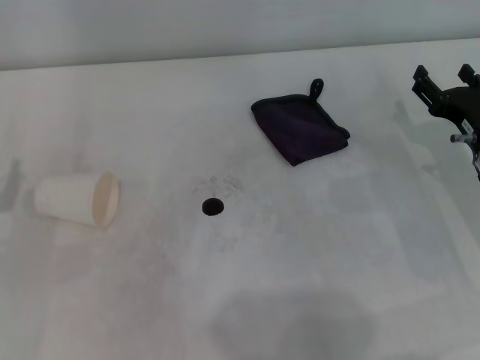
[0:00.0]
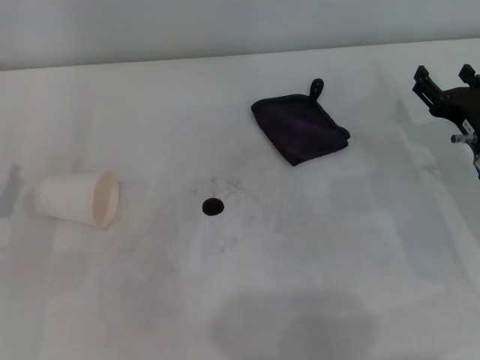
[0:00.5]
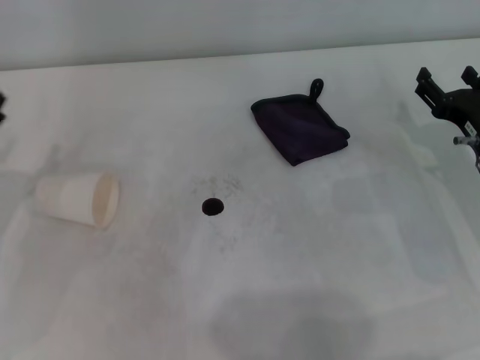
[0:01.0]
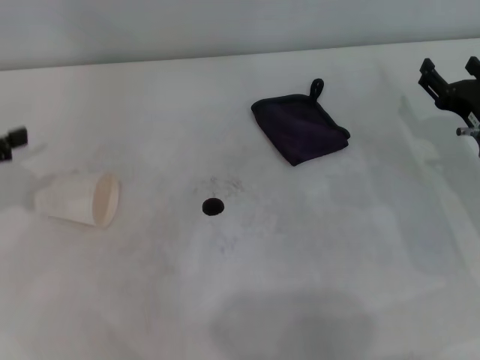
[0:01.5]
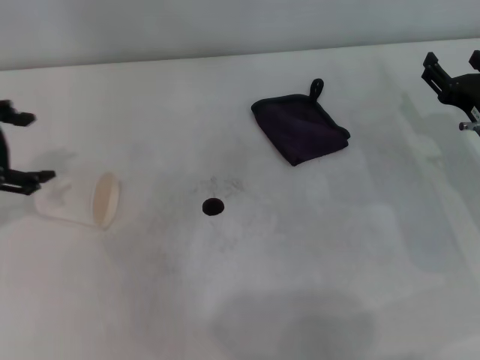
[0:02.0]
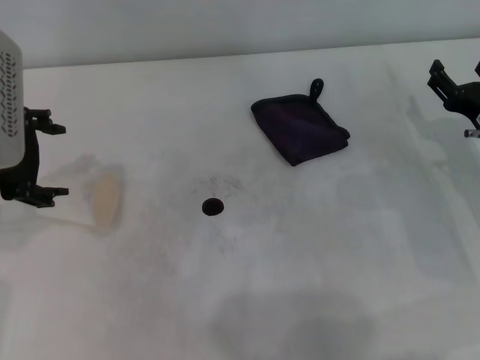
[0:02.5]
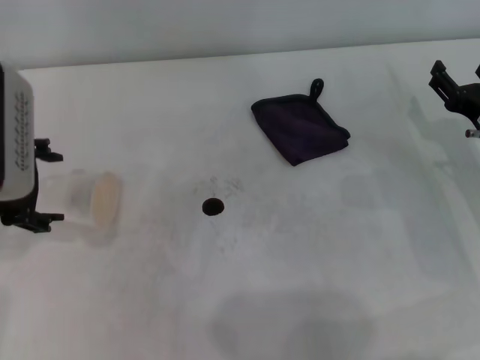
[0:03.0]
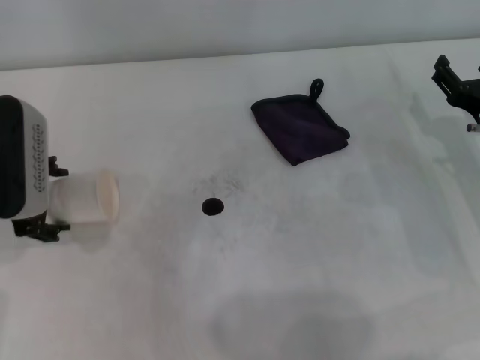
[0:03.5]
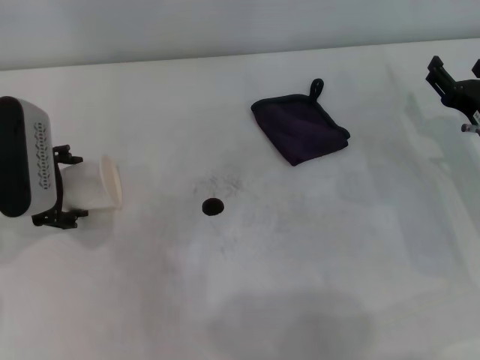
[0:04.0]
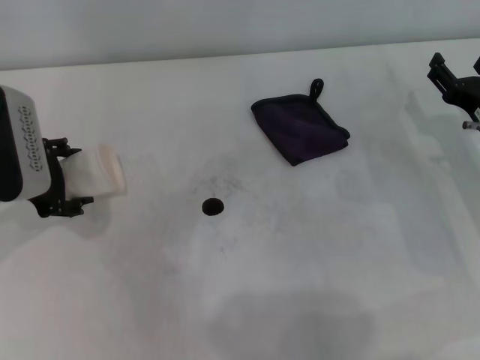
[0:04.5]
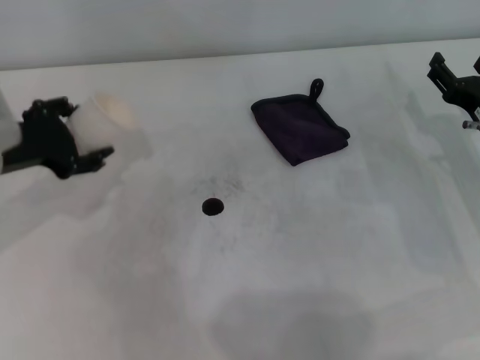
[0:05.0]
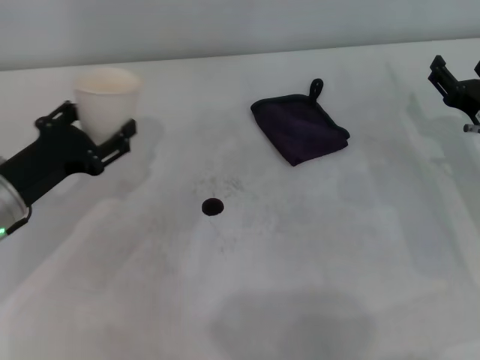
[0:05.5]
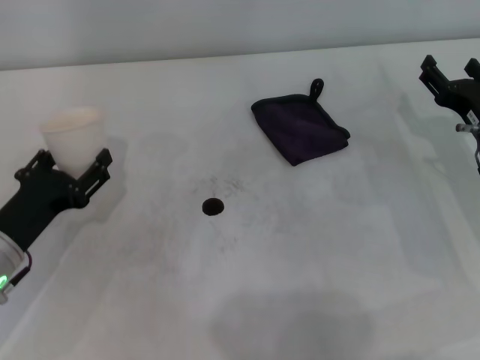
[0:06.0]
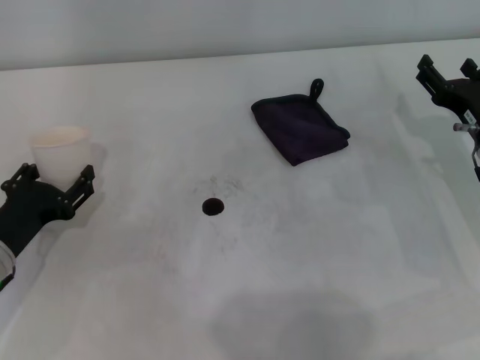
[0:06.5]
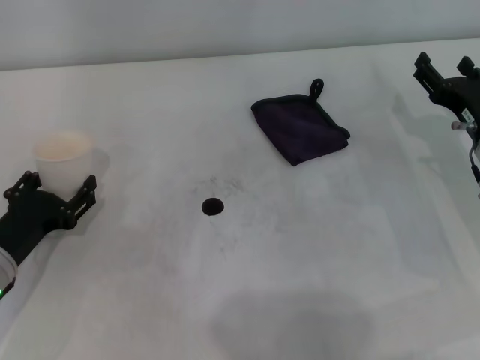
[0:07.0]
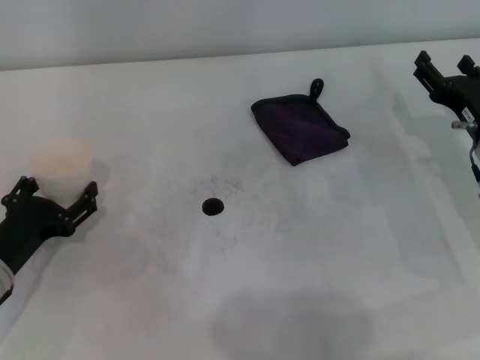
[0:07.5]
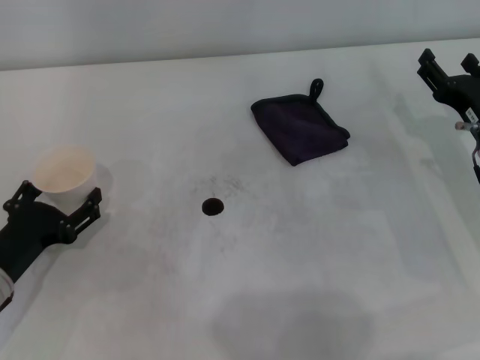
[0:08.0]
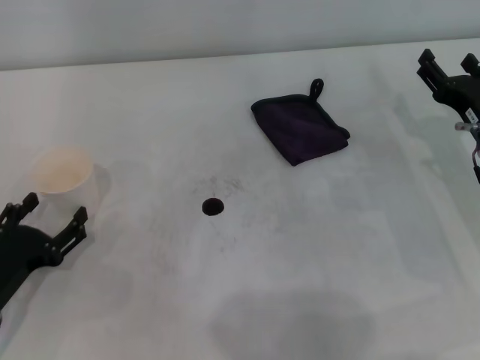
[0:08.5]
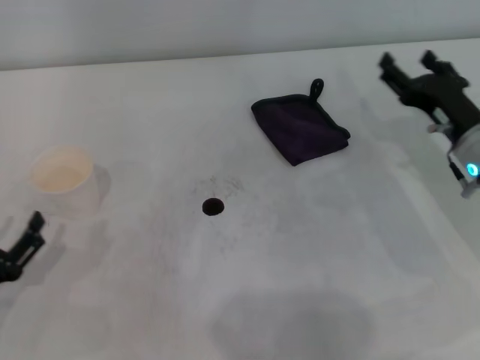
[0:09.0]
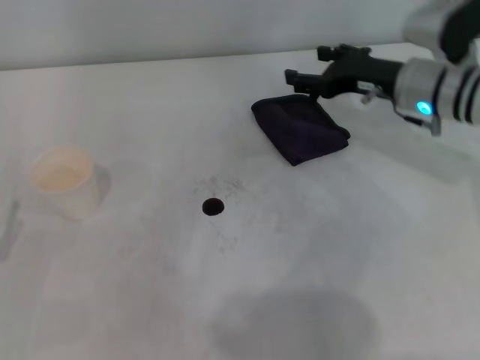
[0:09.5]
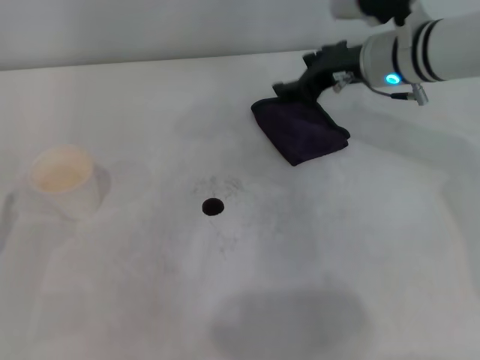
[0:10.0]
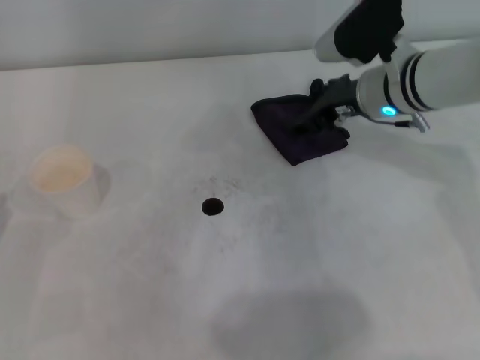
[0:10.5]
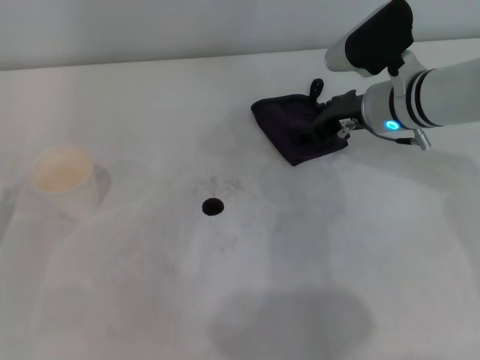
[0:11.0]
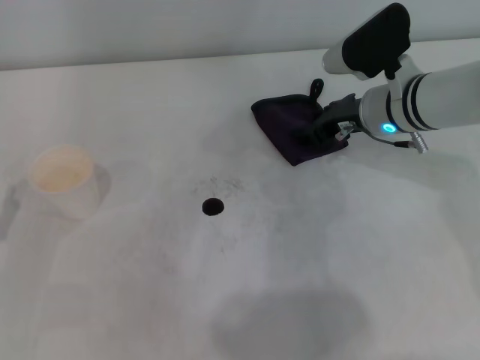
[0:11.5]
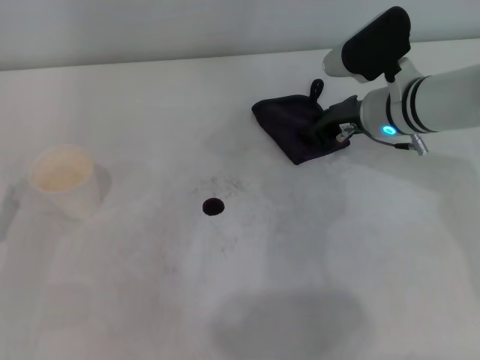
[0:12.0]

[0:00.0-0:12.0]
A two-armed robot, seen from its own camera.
Step, 0:00.0 to 0:04.0: Grasp the paper cup with the left gripper.
Step, 0:04.5 to 0:07.5: Stand the paper cup upright with the left gripper.
0:00.0 to 0:02.0: The left gripper moves upward and forward, about 20 cm.
0:02.0 to 0:04.0: The left gripper shifts some 10 cm downward and to the right.
0:04.0 to 0:06.0: The left gripper goes some 10 cm downward and backward, and closes up.
0:06.0 to 0:08.0: The left gripper opens its fingers.
0:08.0 to 0:10.0: The right gripper shifts about 20 cm forward, to the left and upward, while the left gripper heads to the left, covering approximately 5 cm.
0:10.0 to 0:12.0: The right gripper moves downward, approximately 5 cm, and closes.

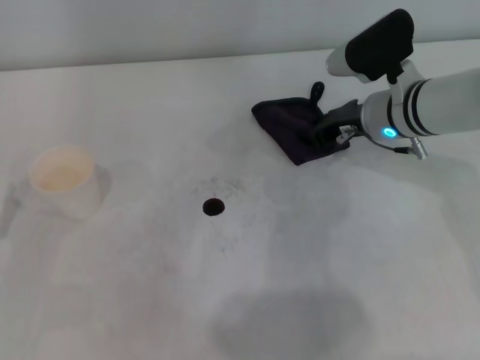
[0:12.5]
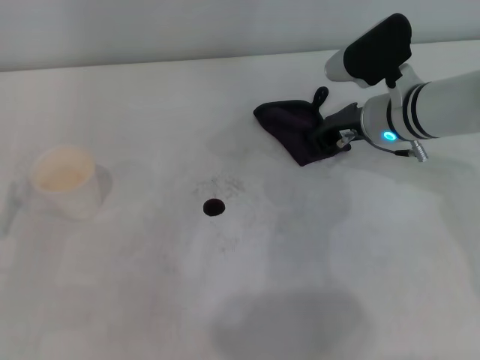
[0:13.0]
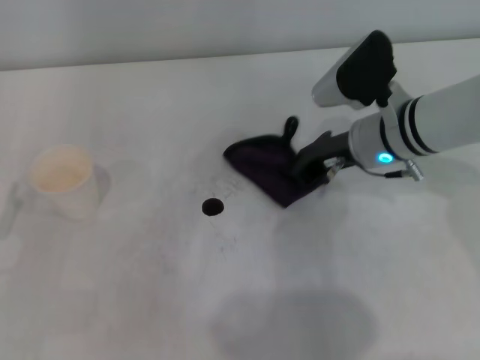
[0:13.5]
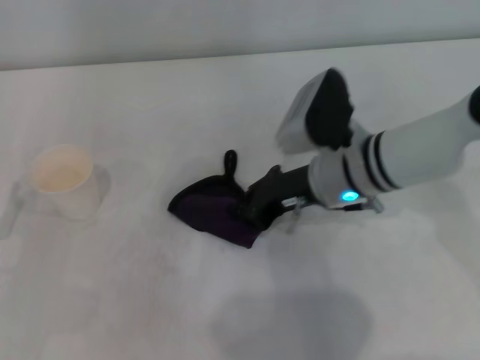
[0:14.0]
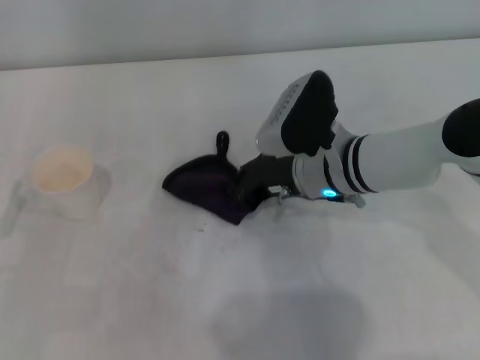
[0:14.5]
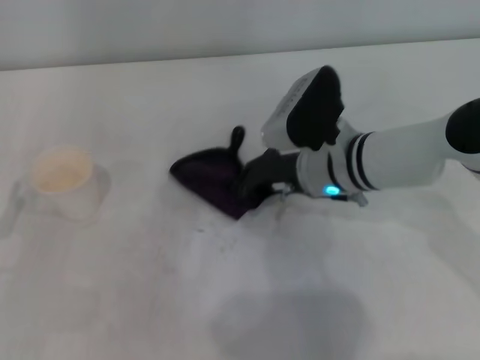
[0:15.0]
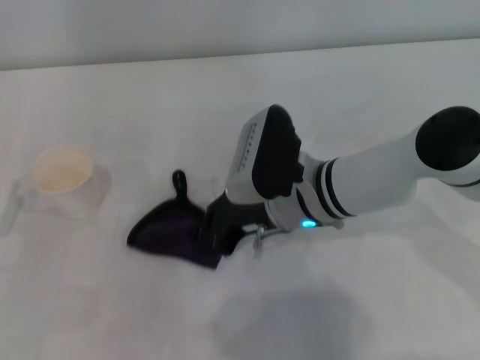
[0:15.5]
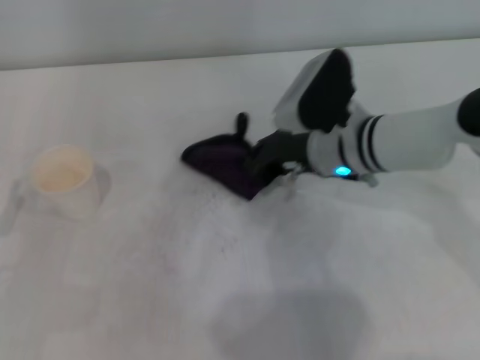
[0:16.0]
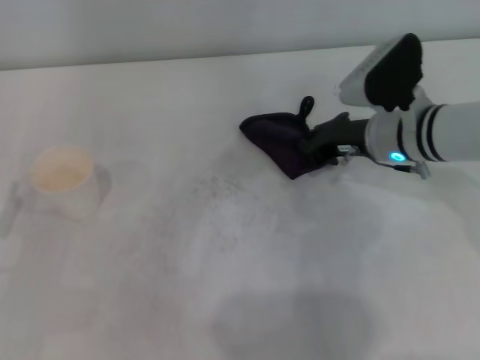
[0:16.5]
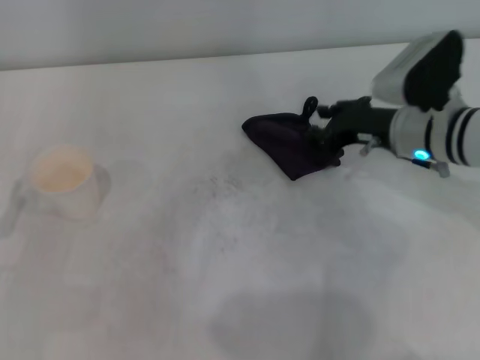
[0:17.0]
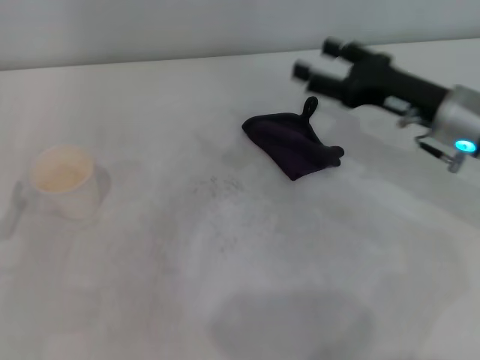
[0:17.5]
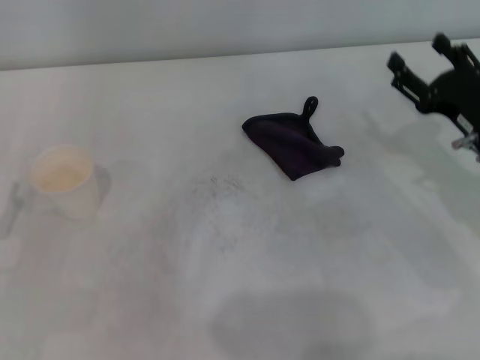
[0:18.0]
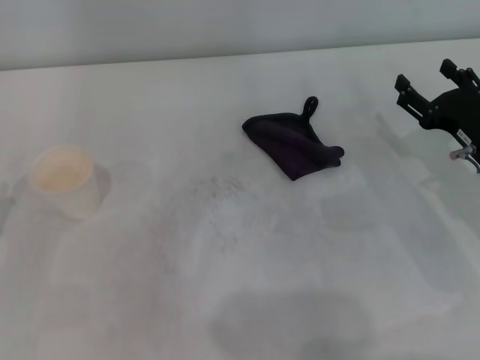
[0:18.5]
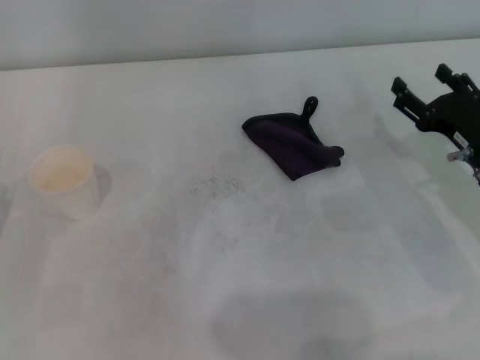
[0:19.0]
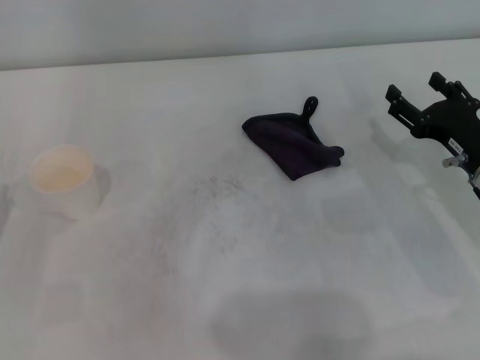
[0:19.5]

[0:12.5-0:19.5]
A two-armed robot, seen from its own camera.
Step, 0:13.0 to 0:15.5: Wipe the stains off the table with the right gripper.
Step, 0:16.0 to 0:16.5: Place the rag on the table with the right gripper.
0:12.5 to 0:14.5: The right gripper goes some 10 cm to the left and backward, and closes up.
0:14.5 to 0:16.0: The grippers stay close to where they were, moving slightly.
0:16.0 to 0:17.5: The right gripper heads to the right, covering some 10 cm, and opens its fingers.
0:17.5 to 0:19.5: The right gripper heads downward, covering approximately 5 cm.

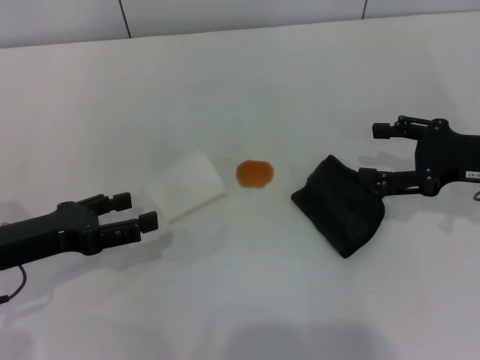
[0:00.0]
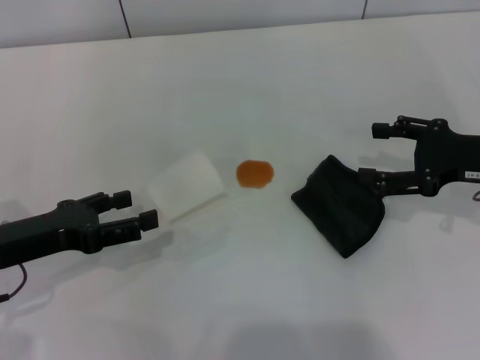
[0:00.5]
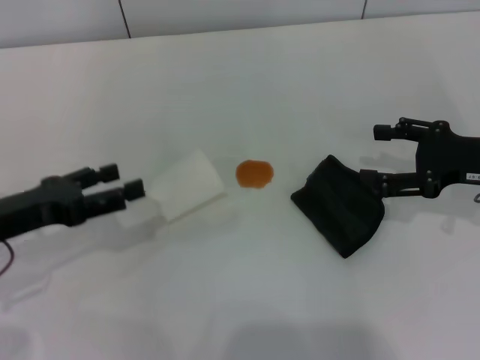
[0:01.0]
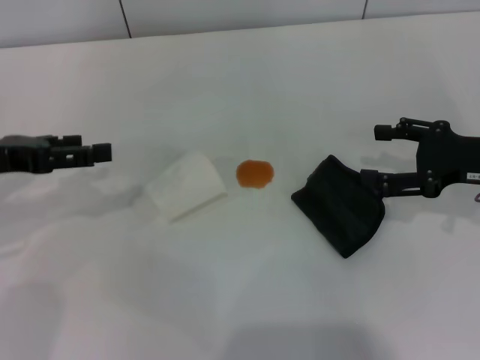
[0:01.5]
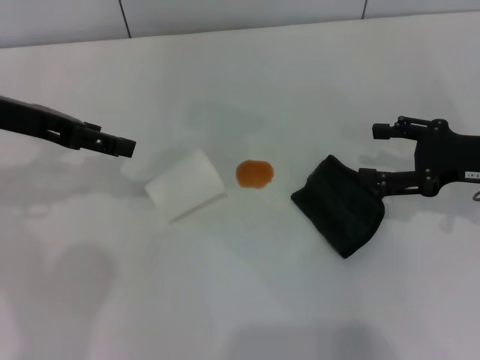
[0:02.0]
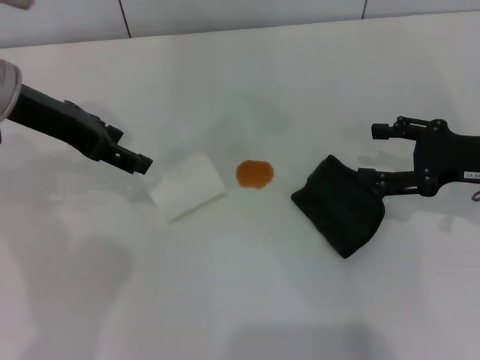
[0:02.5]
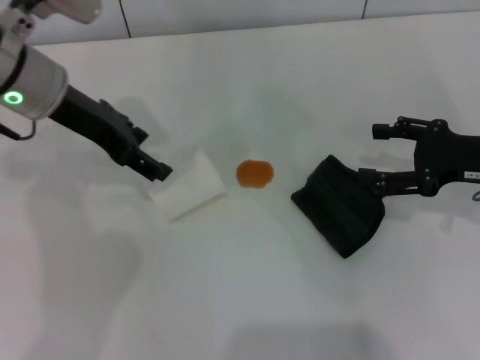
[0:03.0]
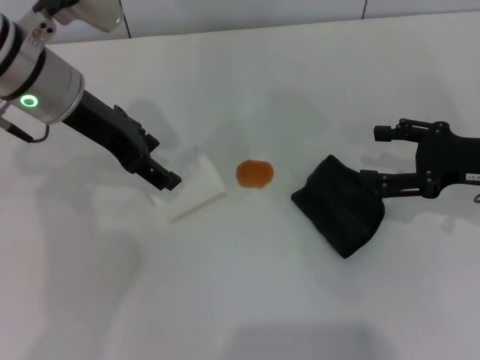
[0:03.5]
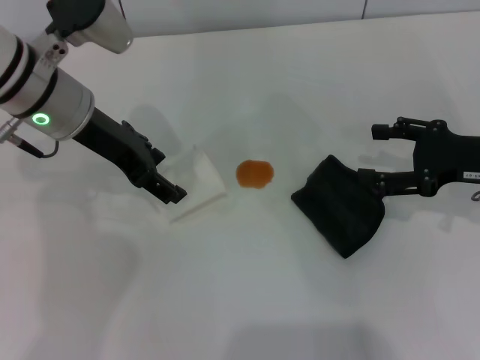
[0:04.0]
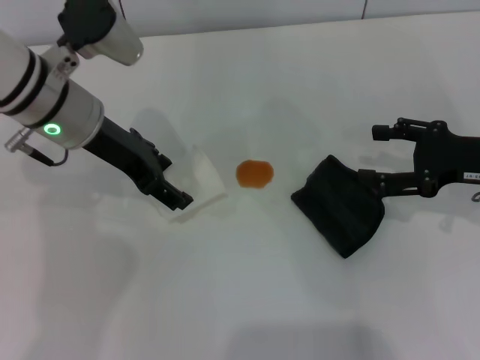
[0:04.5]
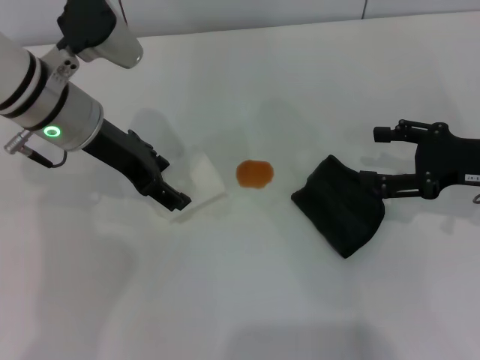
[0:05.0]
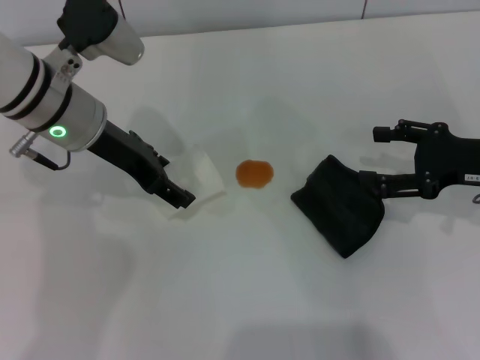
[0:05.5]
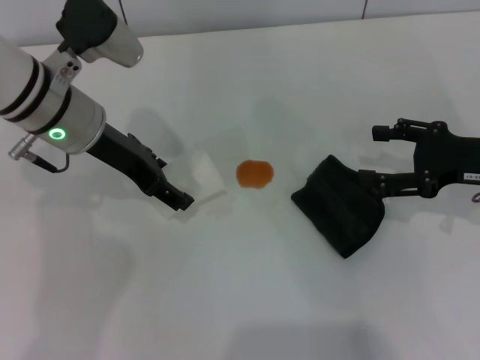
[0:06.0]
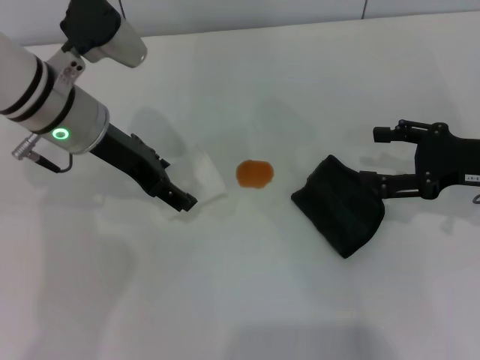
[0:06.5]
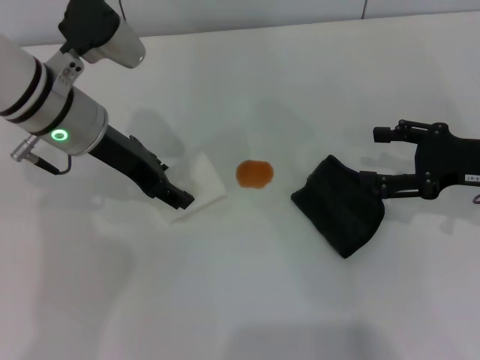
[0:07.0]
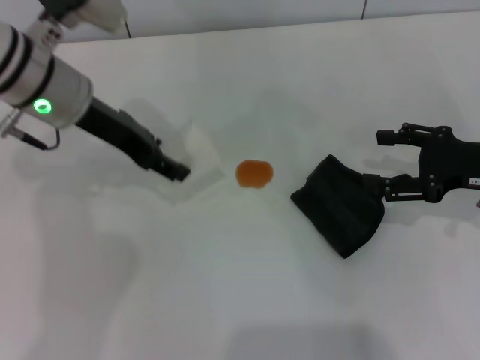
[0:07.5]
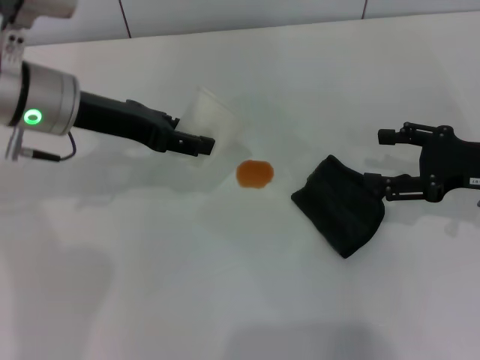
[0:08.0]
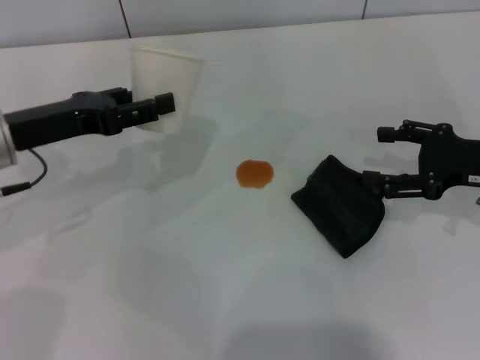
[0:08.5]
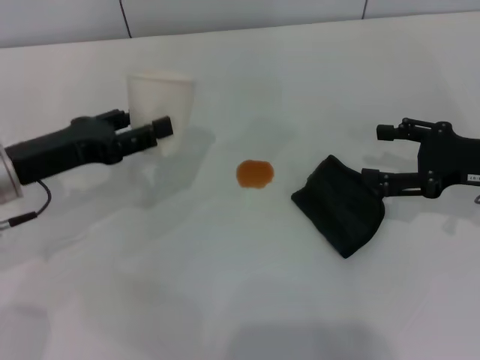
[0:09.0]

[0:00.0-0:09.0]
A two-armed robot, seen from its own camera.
Step, 0:00.0 to 0:06.0: Grasp the paper cup with the left gripper.
0:00.0 to 0:02.0: The left gripper travels upward and forward by some 15 cm.
0:02.0 to 0:04.5: The left gripper goes some 10 cm to the right.
0:04.5 to 0:07.0: The left gripper closes up.
0:07.0 to 0:09.0: The left gripper moves to the left and backward, roughly 10 cm.
